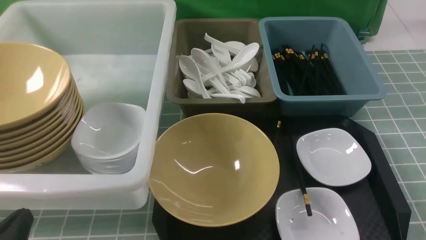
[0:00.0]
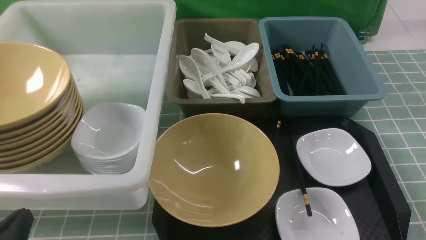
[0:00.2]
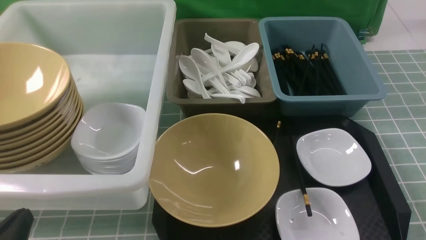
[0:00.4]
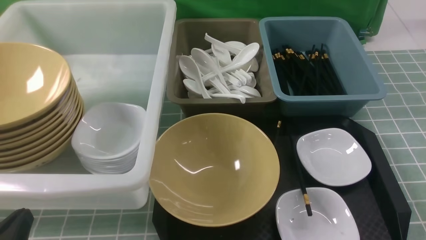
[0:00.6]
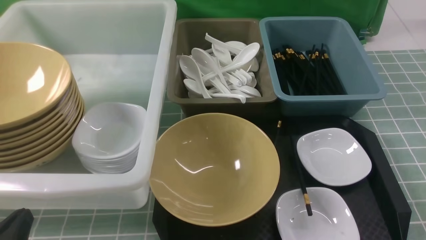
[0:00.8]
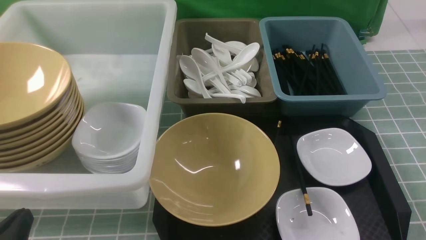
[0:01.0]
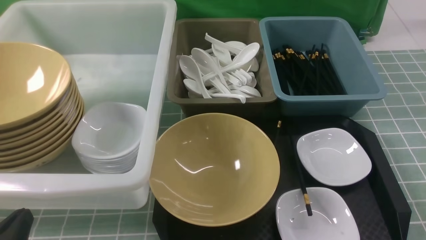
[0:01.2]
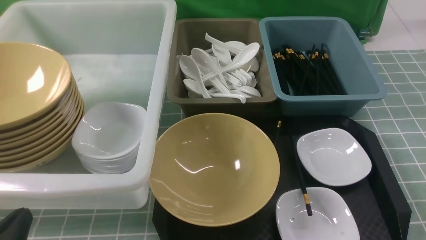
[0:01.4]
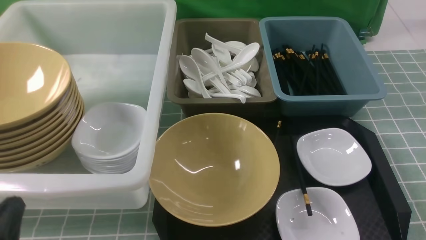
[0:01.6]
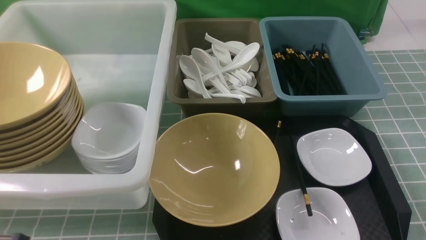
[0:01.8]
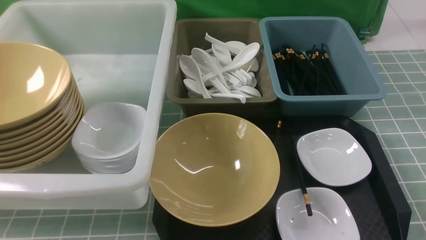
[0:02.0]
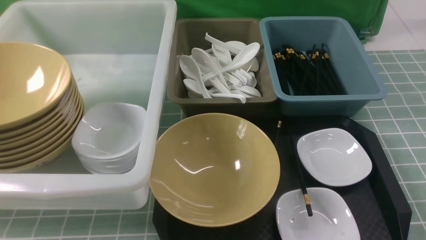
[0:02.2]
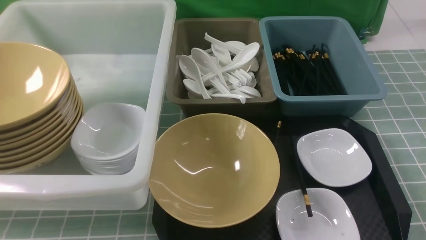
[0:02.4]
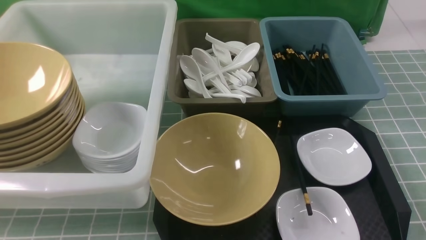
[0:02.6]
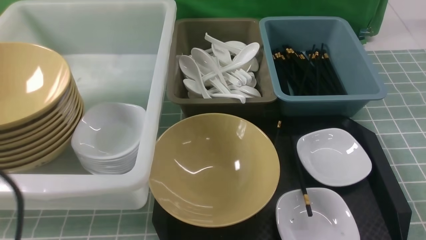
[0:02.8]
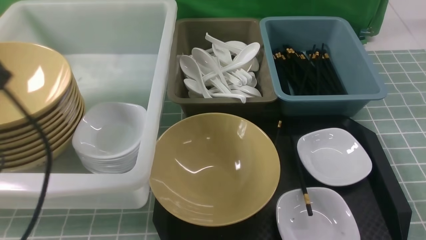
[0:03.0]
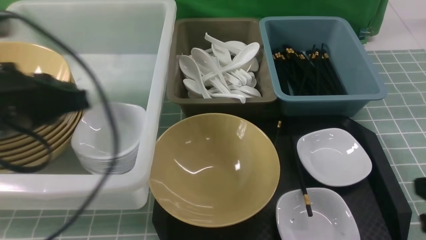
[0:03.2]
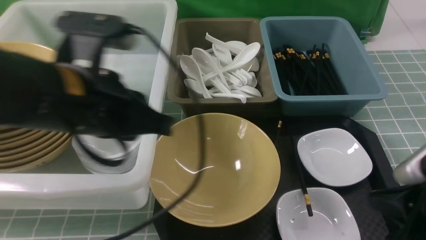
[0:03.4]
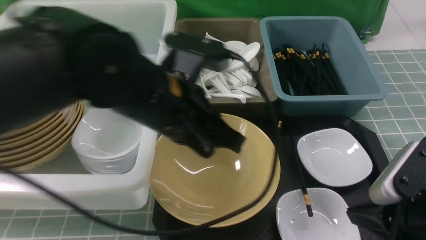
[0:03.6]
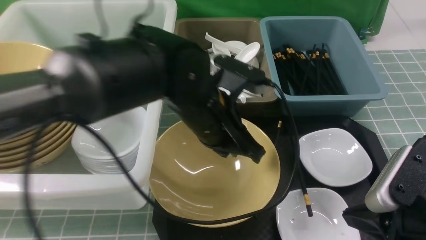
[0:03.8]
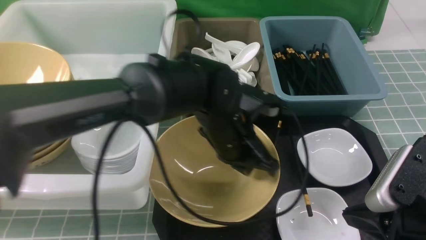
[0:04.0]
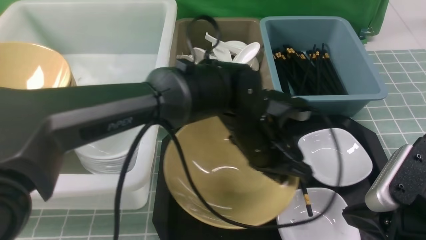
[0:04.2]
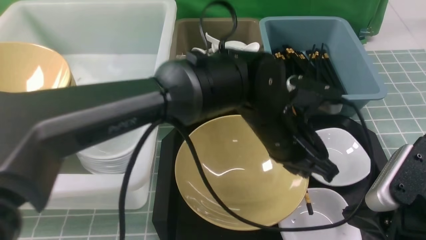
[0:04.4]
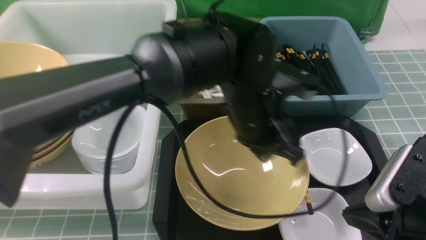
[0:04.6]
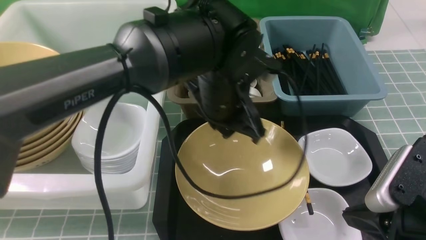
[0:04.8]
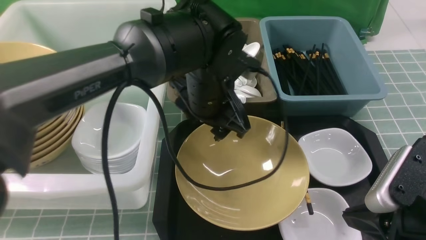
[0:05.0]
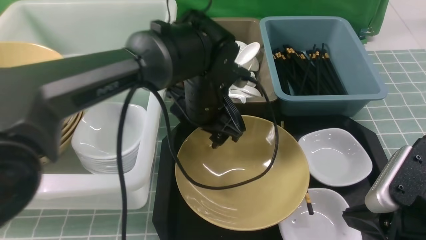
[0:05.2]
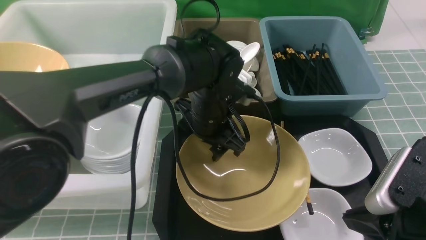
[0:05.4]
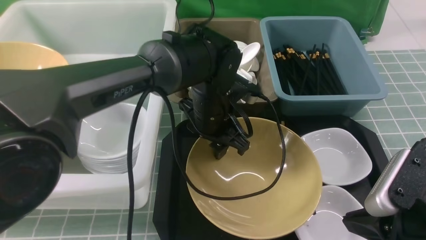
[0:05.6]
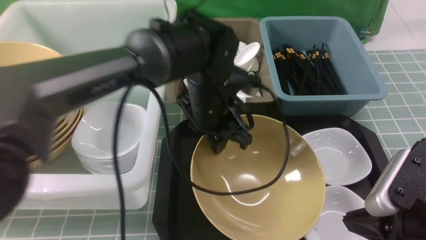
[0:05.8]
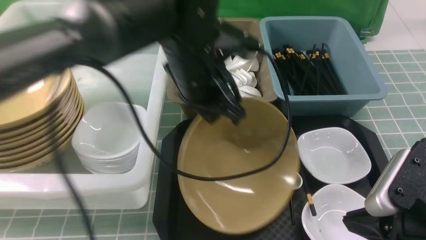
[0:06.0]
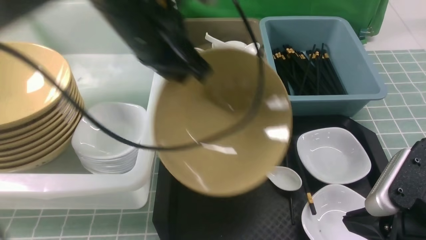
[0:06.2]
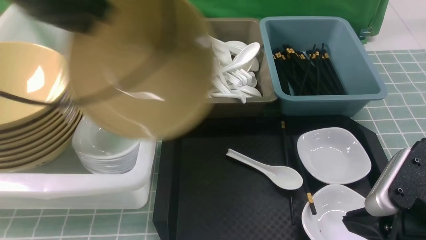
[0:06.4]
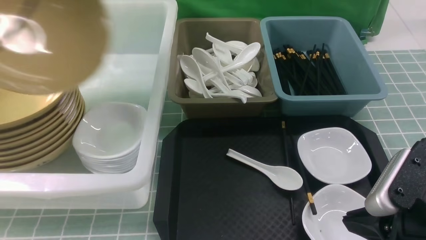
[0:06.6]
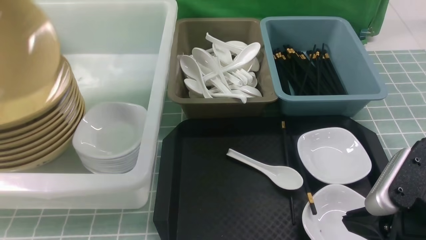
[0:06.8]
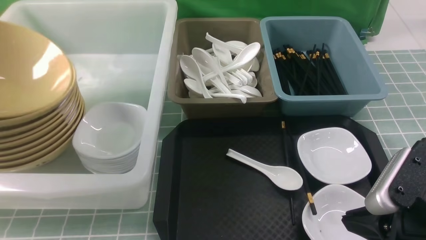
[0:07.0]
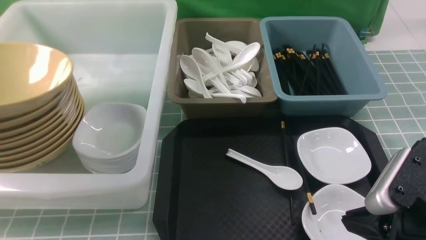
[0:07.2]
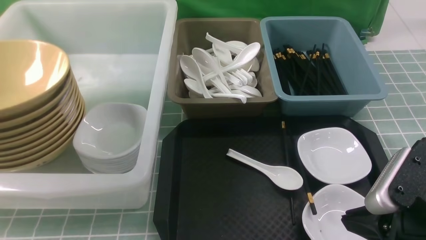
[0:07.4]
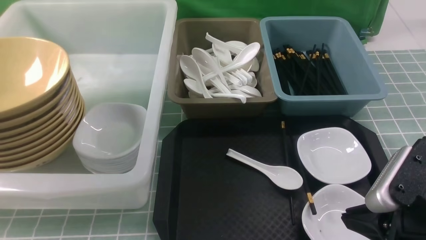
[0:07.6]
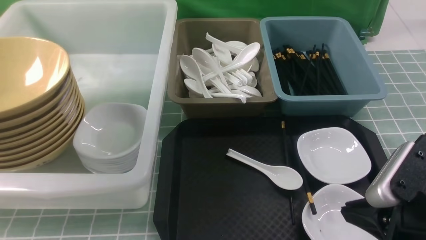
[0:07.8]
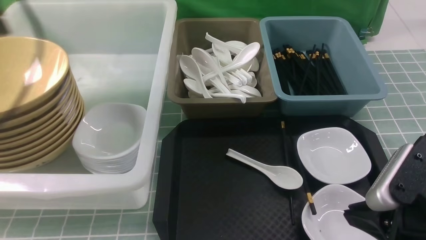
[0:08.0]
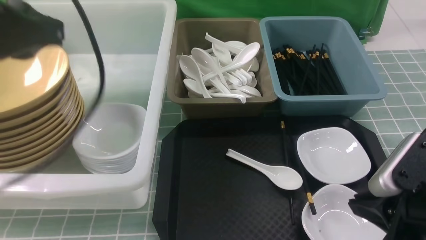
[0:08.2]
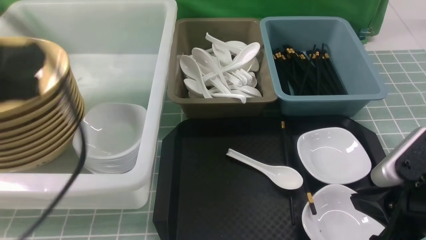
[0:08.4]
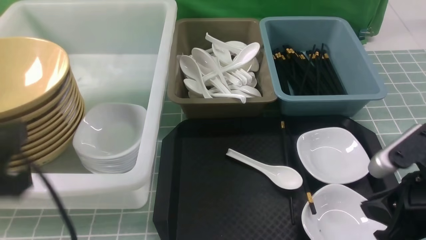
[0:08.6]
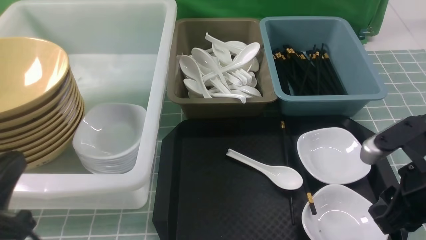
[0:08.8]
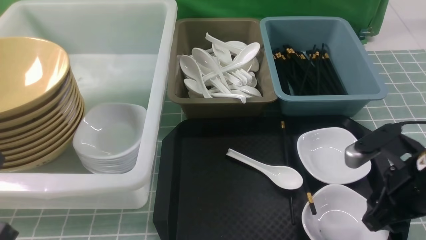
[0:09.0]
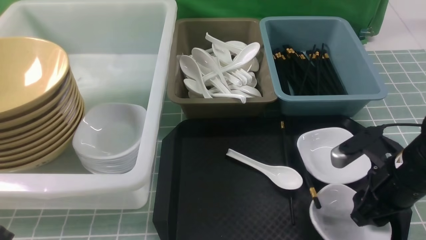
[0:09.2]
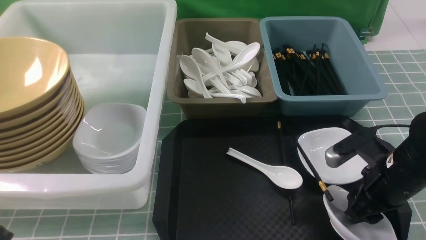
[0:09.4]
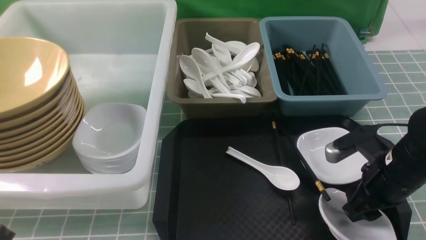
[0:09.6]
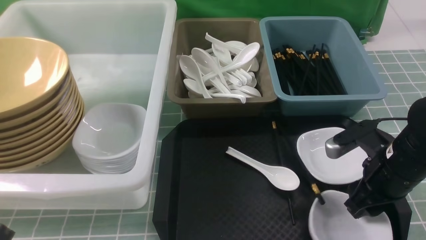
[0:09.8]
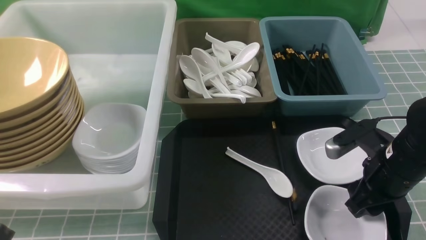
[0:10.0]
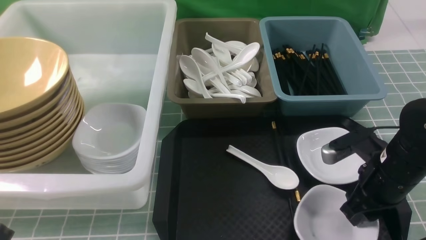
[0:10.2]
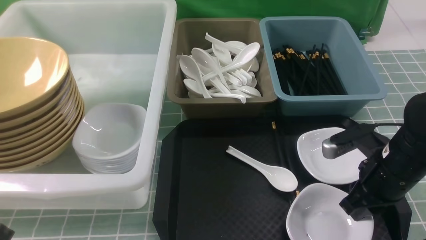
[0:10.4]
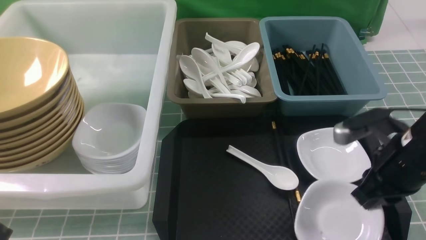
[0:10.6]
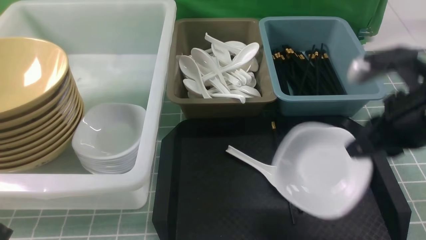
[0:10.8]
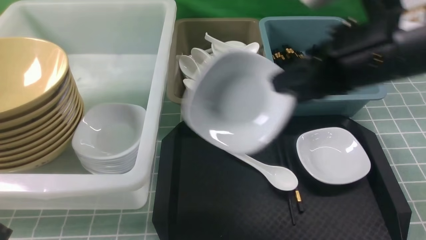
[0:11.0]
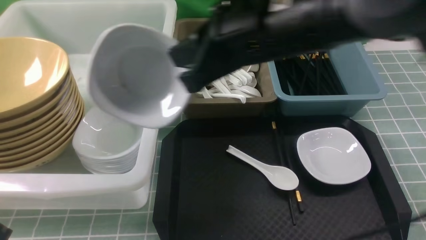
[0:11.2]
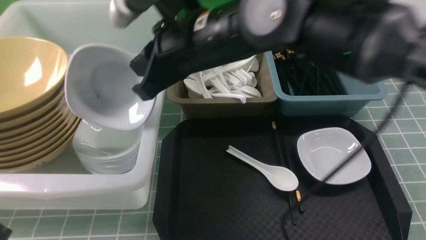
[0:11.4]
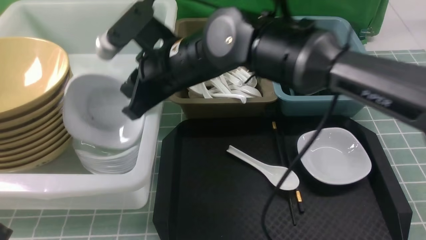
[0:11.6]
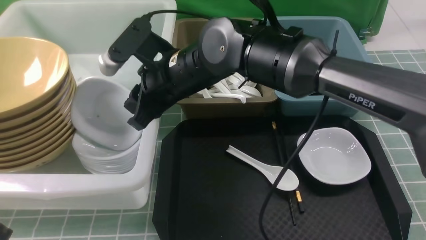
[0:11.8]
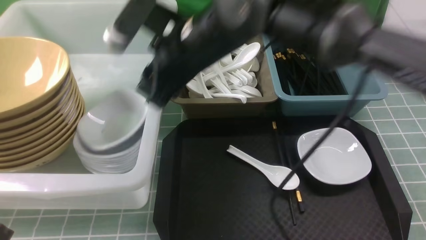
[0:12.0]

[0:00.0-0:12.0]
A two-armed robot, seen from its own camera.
Task of the whole recording: on blue table put chopsticks spoon bowls plates into blue grey white boxes.
Step, 0:00.0 to 0:06.0: use the left arm to grab the yellow noodle bowl on the left.
Step, 0:06.2 to 0:07.4: use the left arm to put the noodle bowl into the large storage box on the left.
Step, 0:07.6 to 0:10.4: use the right arm to grab the plate.
0:01.6 to 0:03.0: The left gripper shifts some 20 cm upward and forward, while the right gripper travels upward and forward by about 10 cm.
0:03.0 to 0:04.4: The left gripper moves to the right, approximately 30 cm. The right gripper is displaced to the left by some 5 cm.
0:04.4 to 0:06.0: The left gripper goes roughly 15 cm to the left and upward, and opens, then closes again.
0:06.0 to 0:07.6: The left gripper shifts about 30 cm to the left, and opens its fingers.
0:07.6 to 0:09.0: The left gripper moves backward, to the right and downward, roughly 25 cm, and closes its fingers; the right gripper heads forward, covering some 10 cm, and opens up.
0:09.0 to 0:10.4: The right gripper closes up.
0:10.4 to 0:12.0: The right gripper goes roughly 30 cm to the left, upward and forward, and opens up.

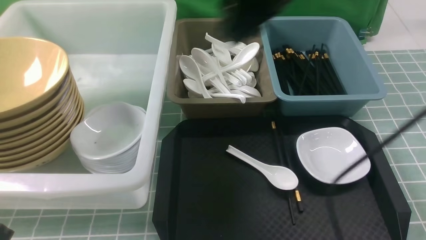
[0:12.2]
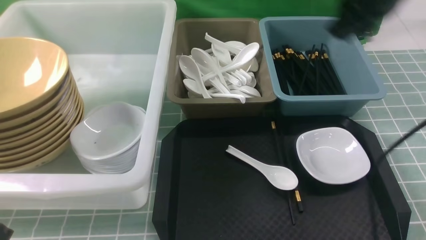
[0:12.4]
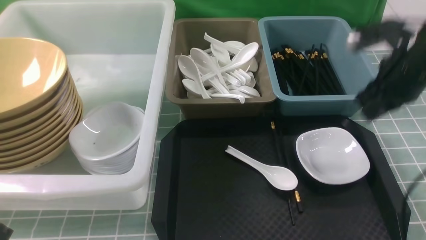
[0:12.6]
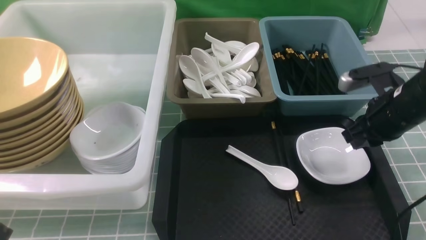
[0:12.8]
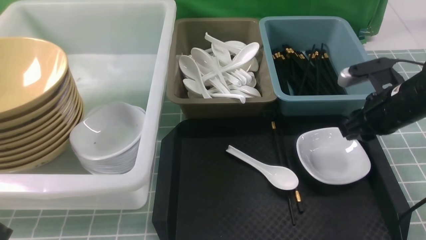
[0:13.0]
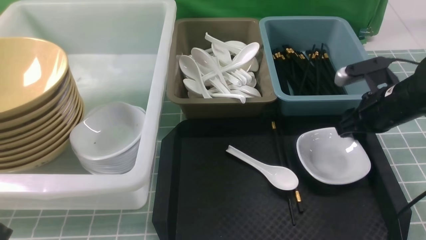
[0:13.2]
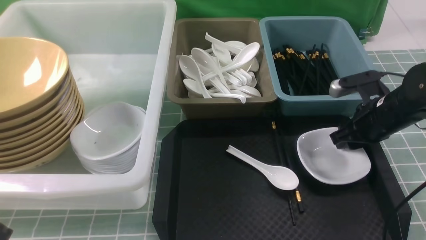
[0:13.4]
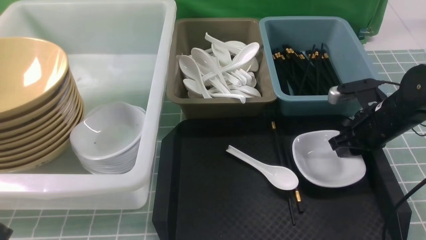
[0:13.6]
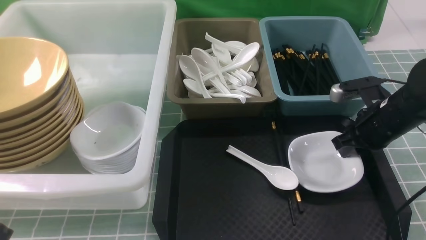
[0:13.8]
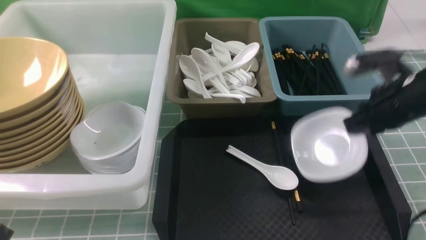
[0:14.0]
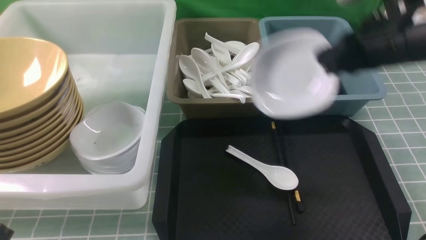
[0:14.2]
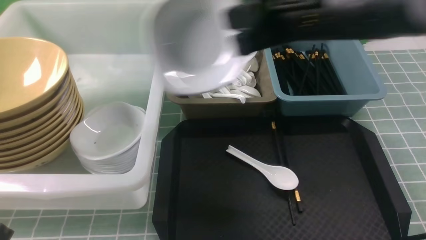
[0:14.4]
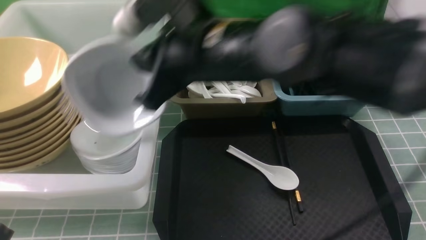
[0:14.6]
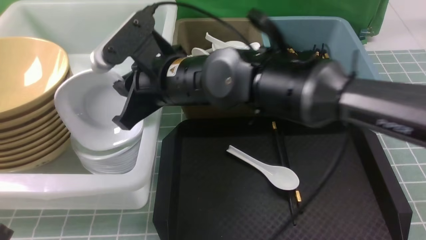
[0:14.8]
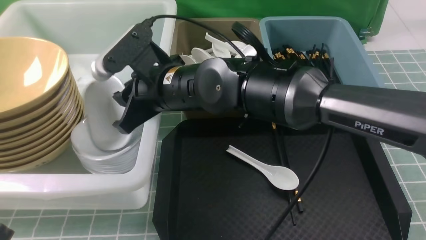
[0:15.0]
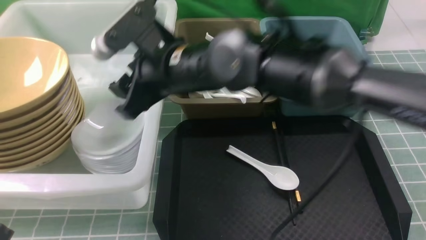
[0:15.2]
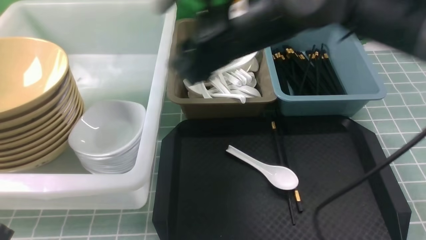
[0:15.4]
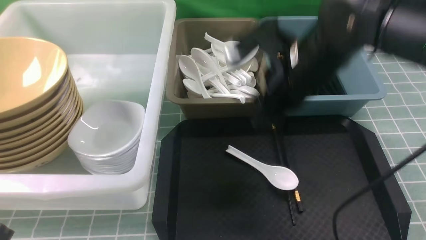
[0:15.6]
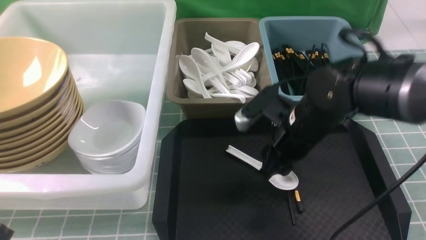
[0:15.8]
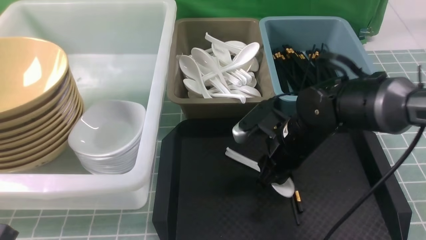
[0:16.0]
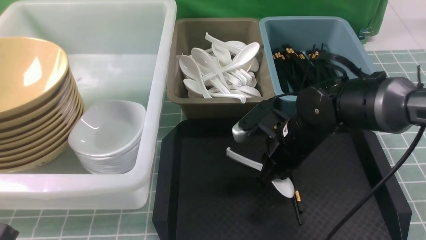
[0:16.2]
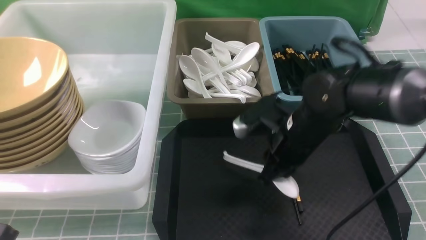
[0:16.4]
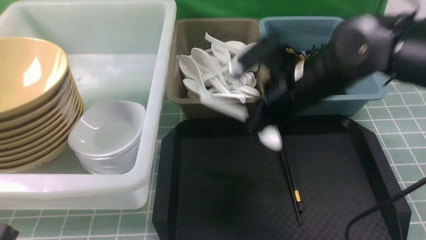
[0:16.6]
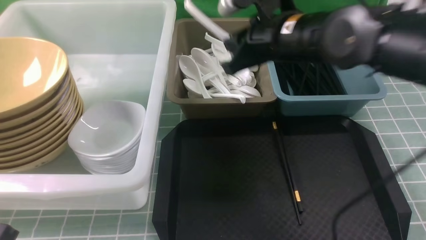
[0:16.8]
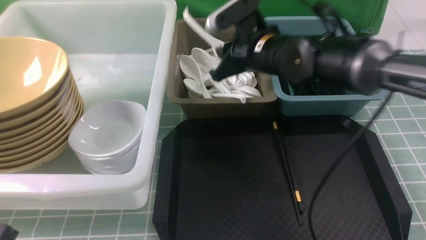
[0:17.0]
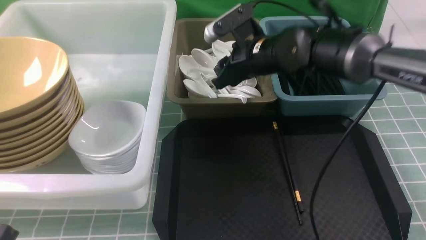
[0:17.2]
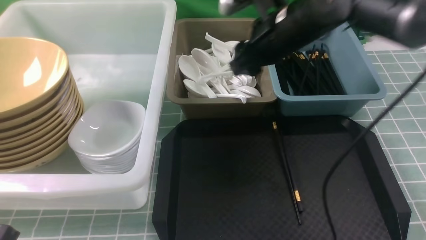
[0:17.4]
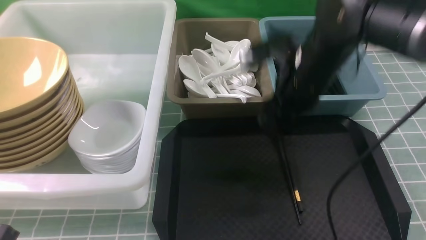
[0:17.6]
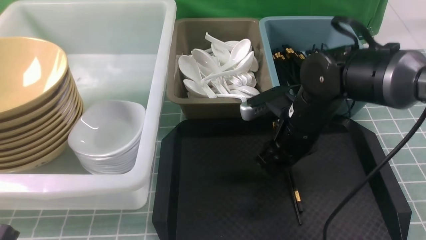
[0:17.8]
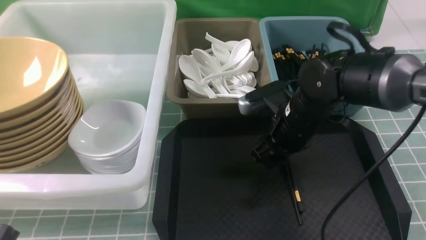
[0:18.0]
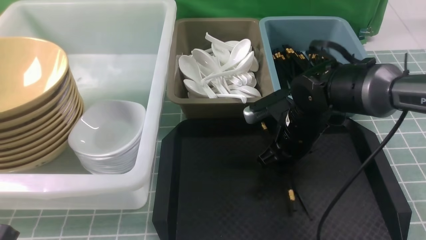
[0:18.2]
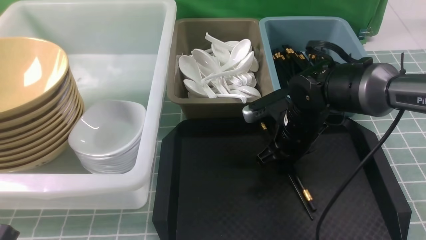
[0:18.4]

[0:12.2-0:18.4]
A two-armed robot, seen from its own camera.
Task of the whole recording: on blue table put chopsticks spoon bowls plates into blue grey white boxes.
Step, 0:12.4 to 0:13.8: use the right arm to grab the plate.
Step, 0:14.0 to 0:15.4: use the right arm to put the plate into the large storage box on the left.
Step, 0:15.6 to 0:16.2: use the right arm to grab the soup spoon in the middle.
Step, 0:16.6 to 0:17.2: use the right arm to put the soup spoon into the small storage box in the middle.
0:12.2 to 0:13.8: The right gripper moves downward and to the right, some 25 cm, and closes up.
0:13.8 to 0:15.4: The right gripper goes approximately 25 cm to the left and upward, and opens up.
0:15.4 to 0:16.8: The right gripper moves roughly 15 cm downward and comes back, and closes up.
0:16.8 to 0:18.4: The right gripper is displaced downward by roughly 10 cm.
